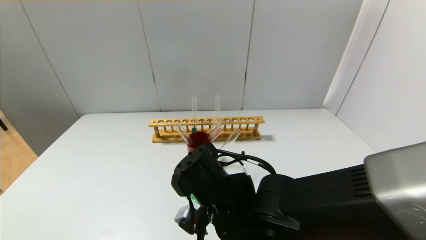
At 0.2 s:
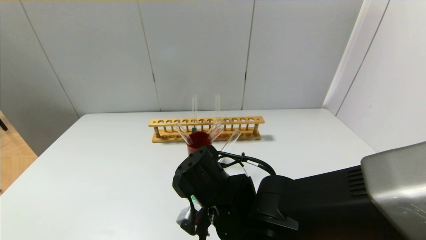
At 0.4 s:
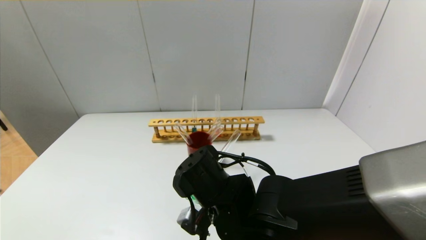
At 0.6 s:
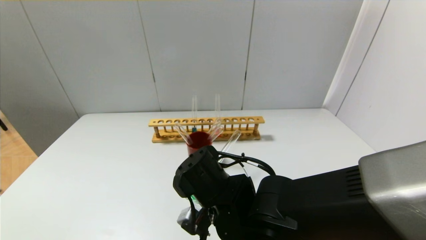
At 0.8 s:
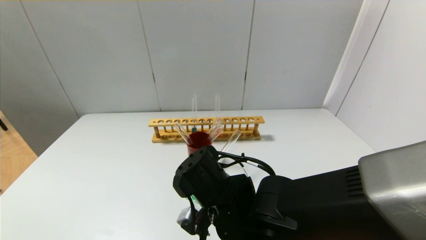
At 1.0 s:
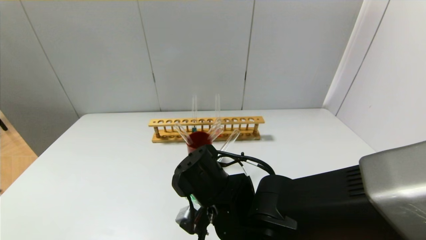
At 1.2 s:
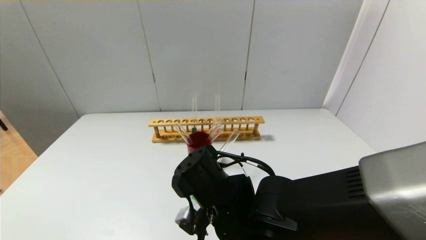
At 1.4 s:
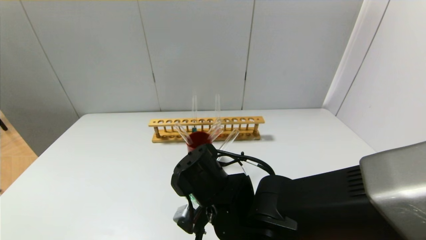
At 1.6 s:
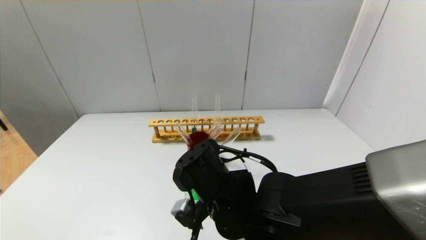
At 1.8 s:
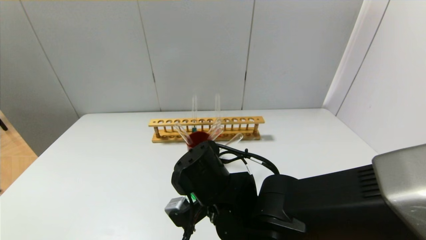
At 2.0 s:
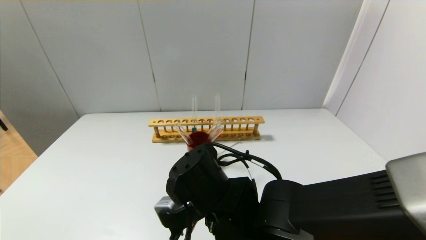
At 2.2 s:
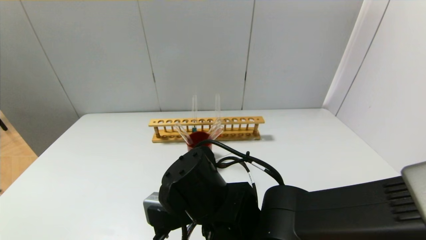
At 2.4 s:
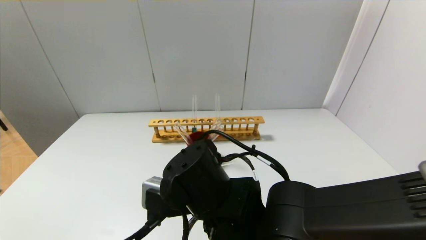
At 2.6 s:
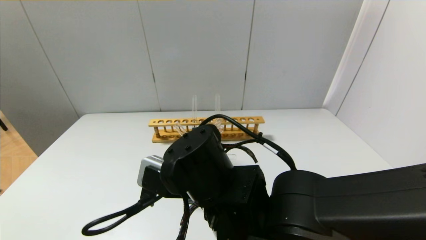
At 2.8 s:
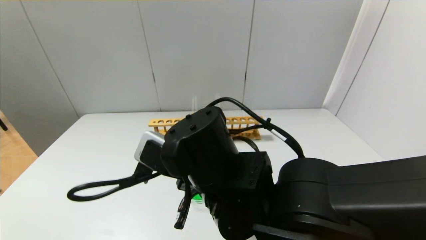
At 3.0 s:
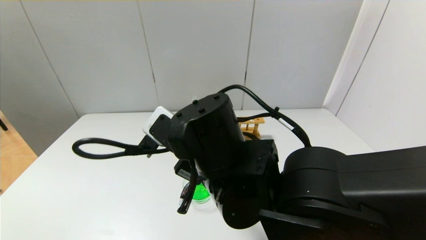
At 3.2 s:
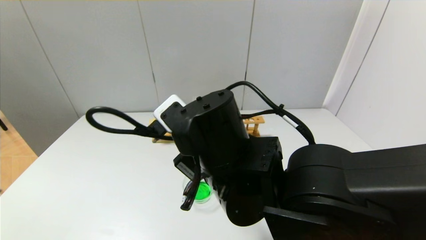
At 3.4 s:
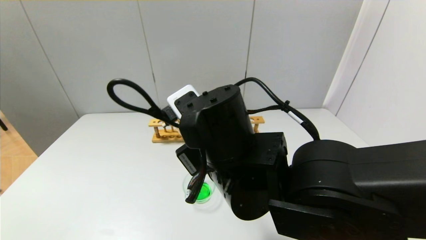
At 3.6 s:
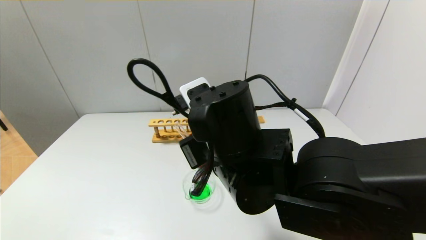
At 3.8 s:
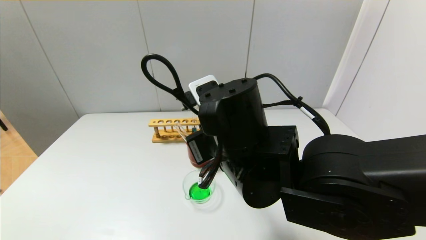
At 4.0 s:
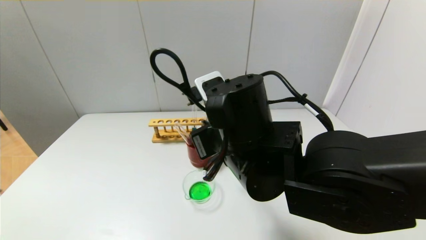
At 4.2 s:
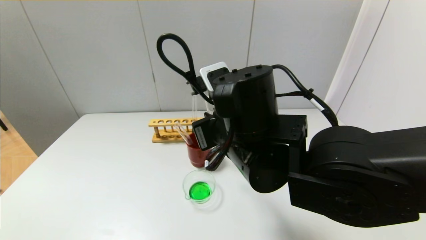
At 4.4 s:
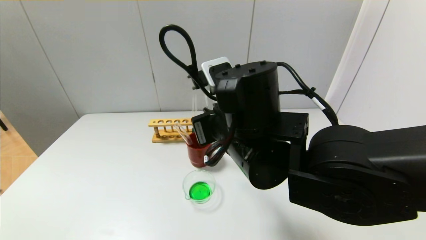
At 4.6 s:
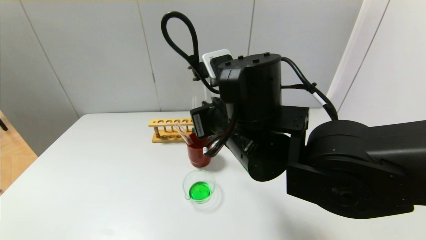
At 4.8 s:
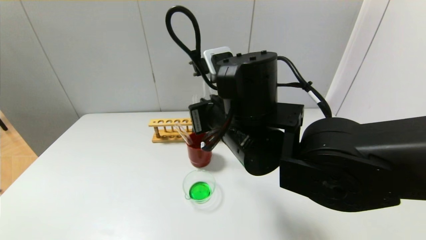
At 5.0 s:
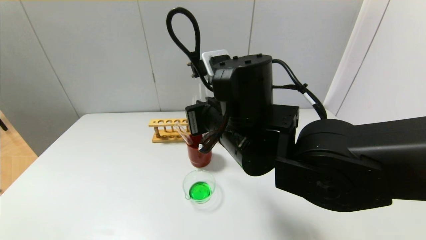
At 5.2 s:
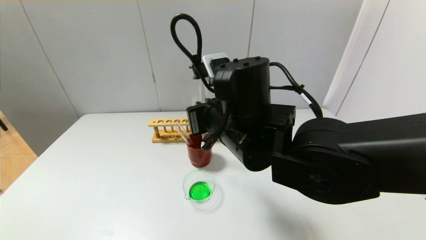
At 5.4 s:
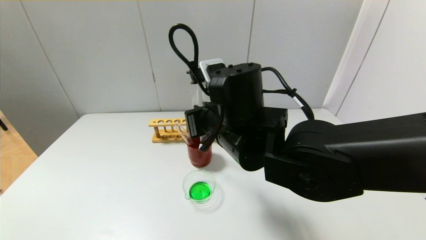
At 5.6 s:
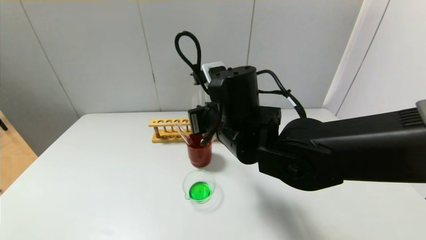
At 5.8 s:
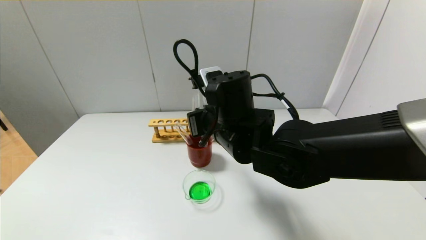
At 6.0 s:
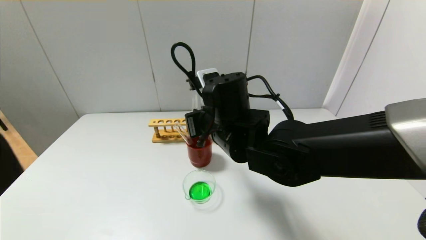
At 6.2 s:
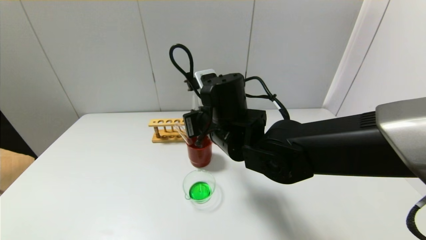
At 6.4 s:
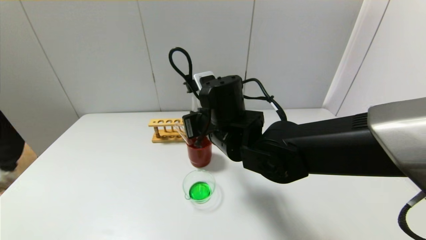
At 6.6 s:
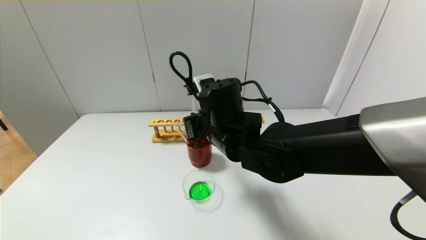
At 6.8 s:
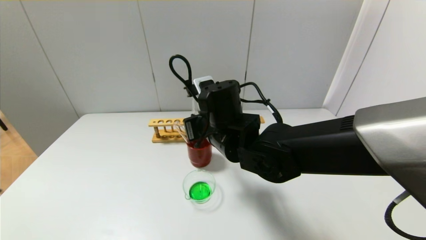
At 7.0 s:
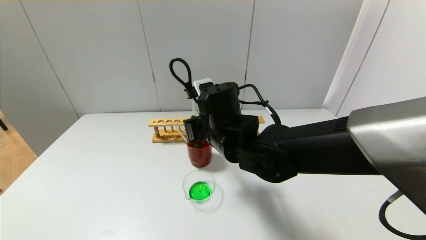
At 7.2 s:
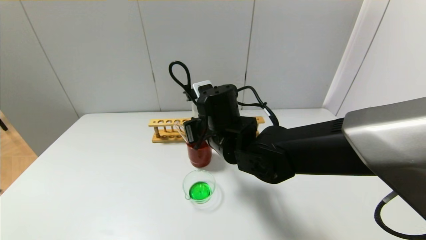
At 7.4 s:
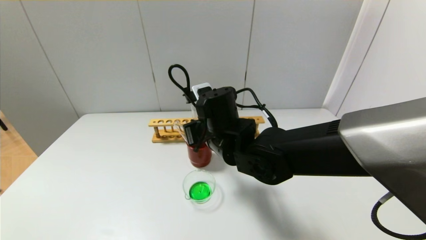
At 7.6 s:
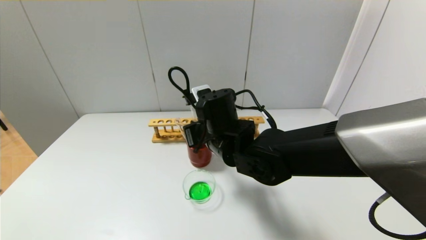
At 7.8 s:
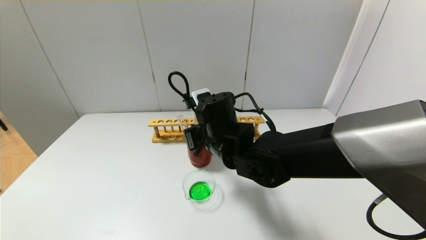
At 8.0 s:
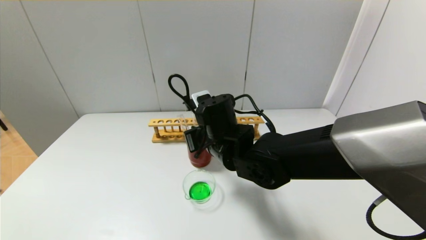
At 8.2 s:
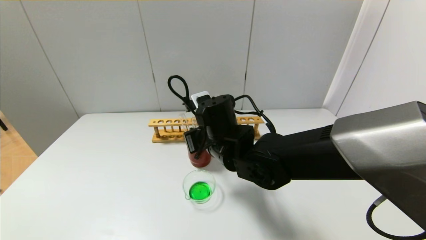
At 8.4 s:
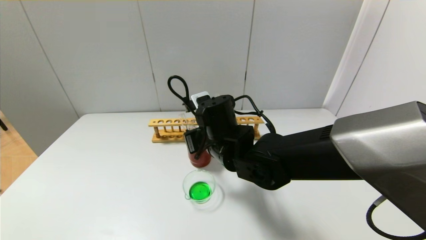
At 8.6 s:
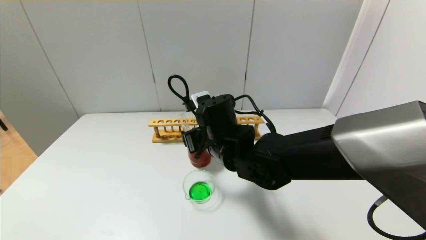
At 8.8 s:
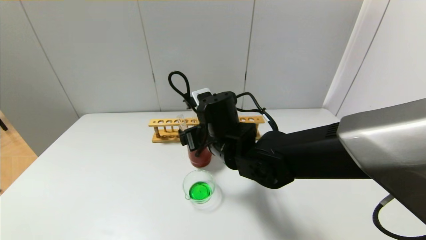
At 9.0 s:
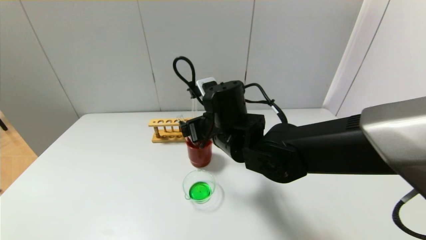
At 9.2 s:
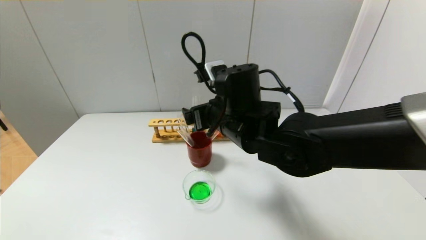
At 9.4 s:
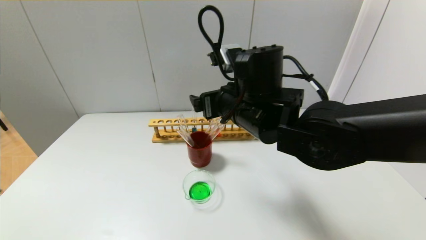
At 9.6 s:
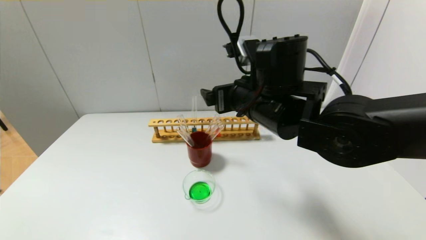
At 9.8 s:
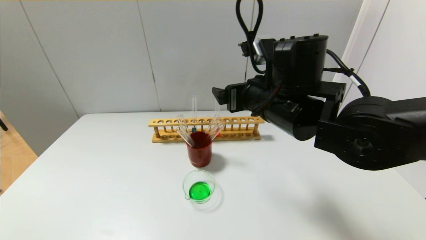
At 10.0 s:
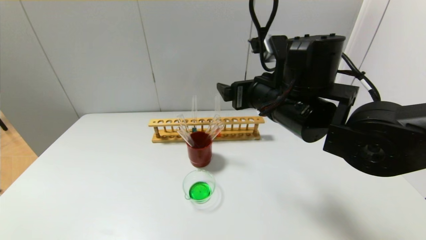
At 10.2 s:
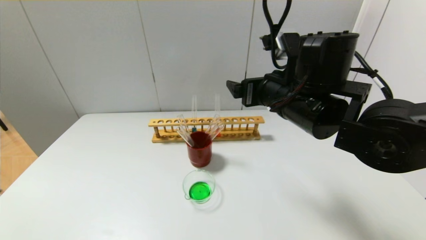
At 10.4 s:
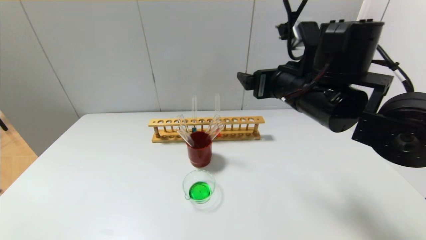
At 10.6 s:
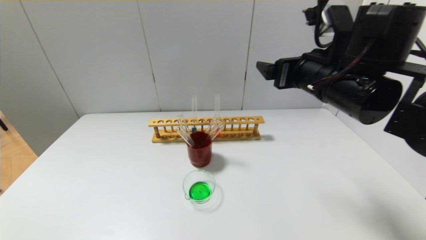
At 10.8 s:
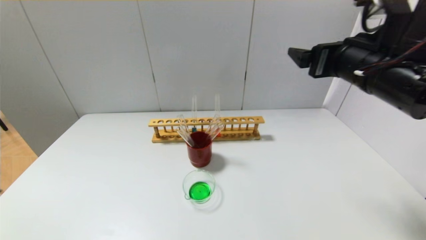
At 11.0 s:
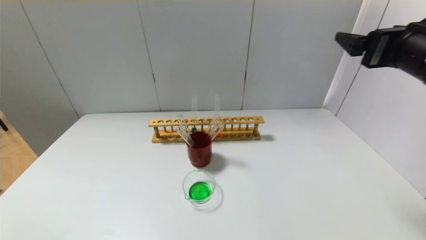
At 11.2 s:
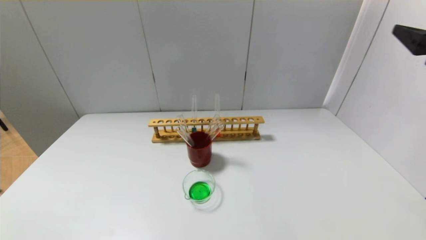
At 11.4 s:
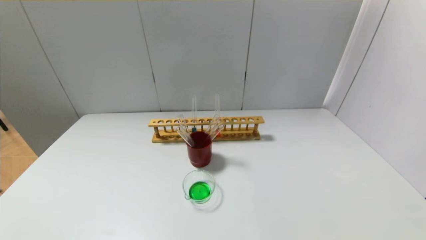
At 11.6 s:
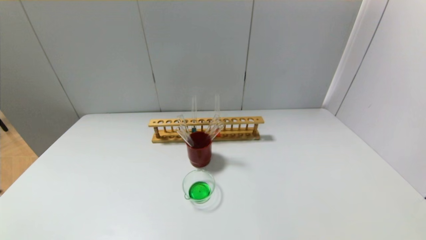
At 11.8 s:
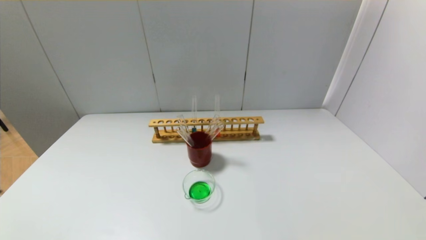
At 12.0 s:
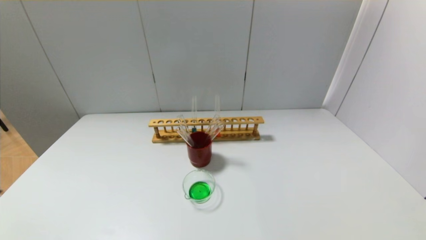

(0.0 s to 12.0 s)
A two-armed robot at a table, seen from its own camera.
Step, 0.0 s - 2.0 s: Pour the blue reagent into the graduated cylinder with the right gripper.
Step, 2.2 s - 9.0 s: Place the test tube into the brown cup with the right gripper.
0.0 s - 1.6 s: The grippers stay close to where they were, moving slightly.
1.6 s - 3.0 s: The right gripper heads upward, covering approximately 10 cm.
4.4 s - 6.0 s: The right gripper travels forward by roughly 5 cm.
6.0 s - 7.6 s: The grippers make only small movements.
7.6 s - 9.0 s: The right gripper opens its fingers.
9.0 s - 10.4 s: The right gripper goes roughly 15 cm to the right and upward.
10.4 s - 12.0 s: The right gripper shifts roughly 35 cm backward and to the right.

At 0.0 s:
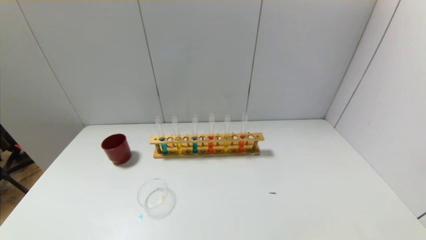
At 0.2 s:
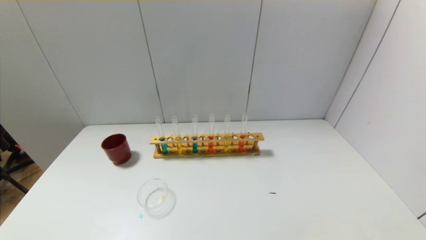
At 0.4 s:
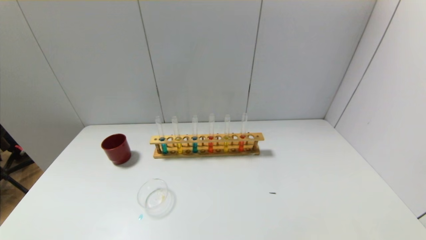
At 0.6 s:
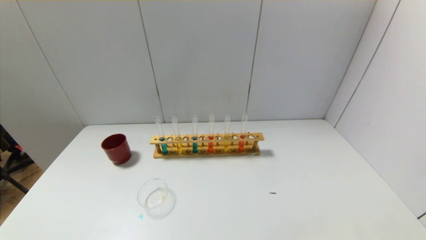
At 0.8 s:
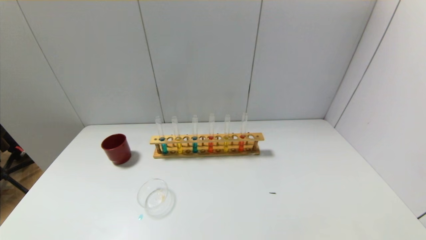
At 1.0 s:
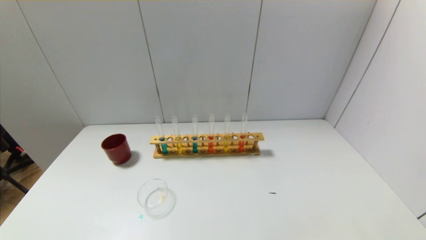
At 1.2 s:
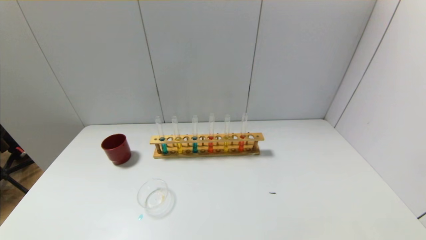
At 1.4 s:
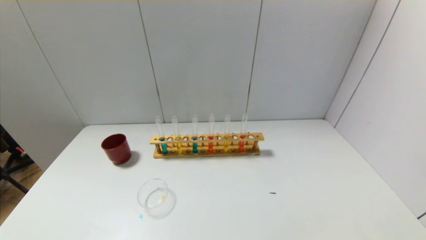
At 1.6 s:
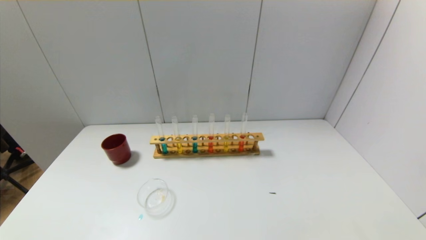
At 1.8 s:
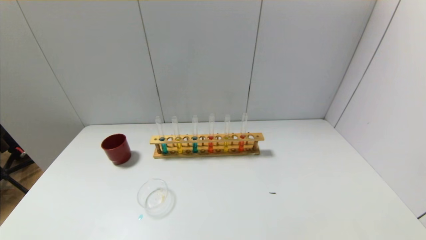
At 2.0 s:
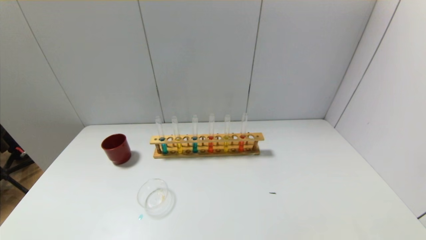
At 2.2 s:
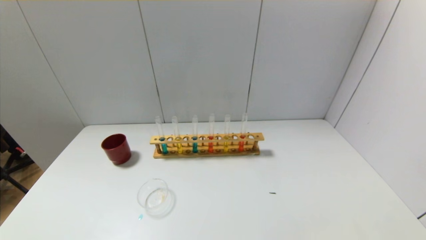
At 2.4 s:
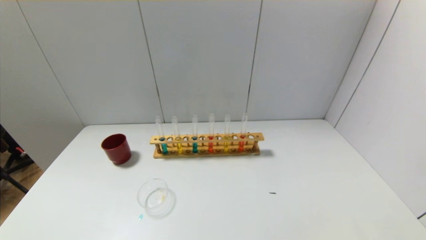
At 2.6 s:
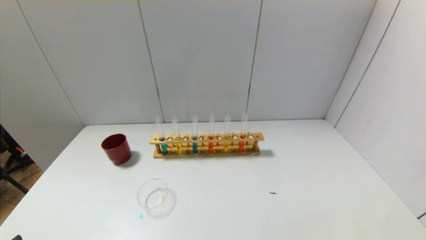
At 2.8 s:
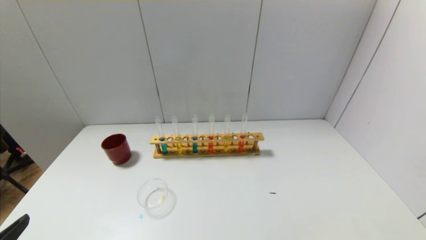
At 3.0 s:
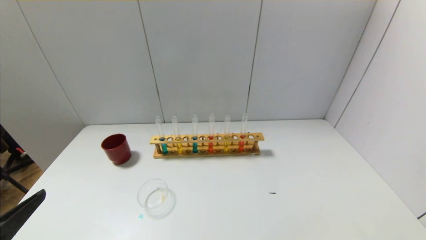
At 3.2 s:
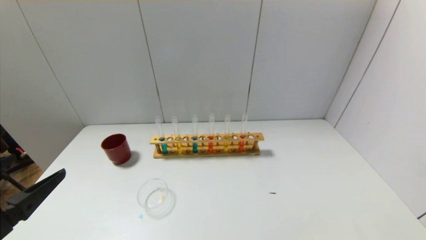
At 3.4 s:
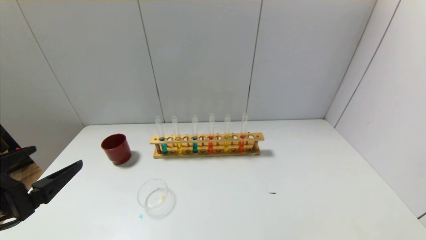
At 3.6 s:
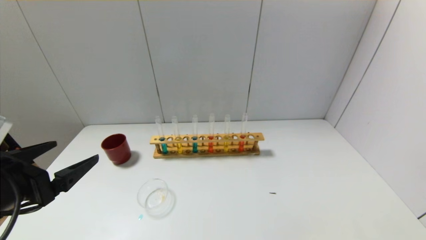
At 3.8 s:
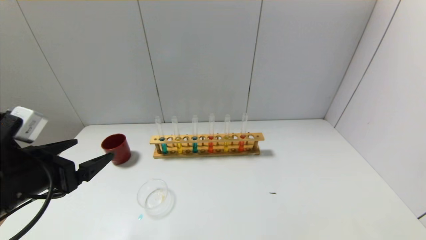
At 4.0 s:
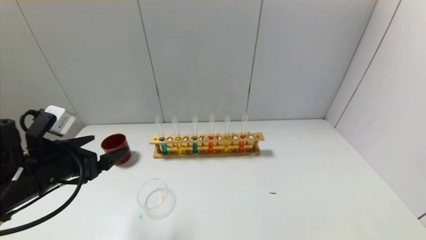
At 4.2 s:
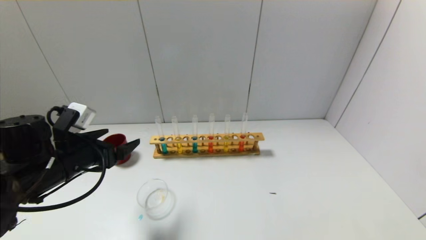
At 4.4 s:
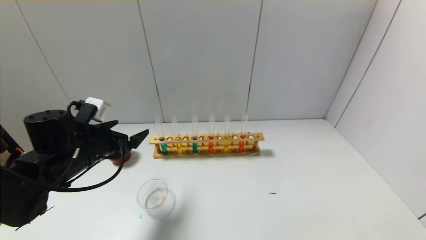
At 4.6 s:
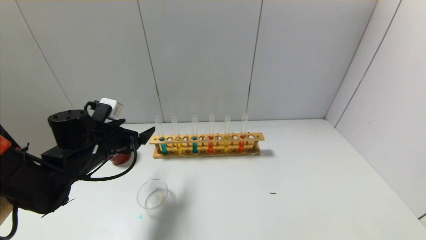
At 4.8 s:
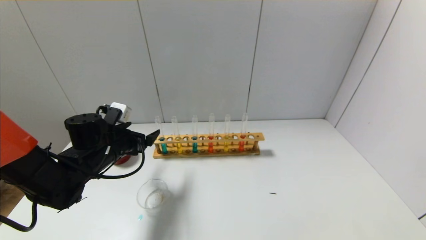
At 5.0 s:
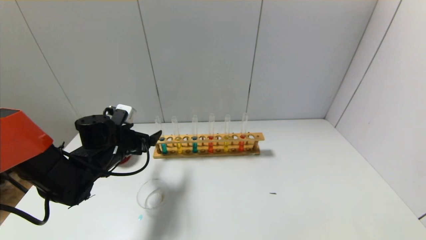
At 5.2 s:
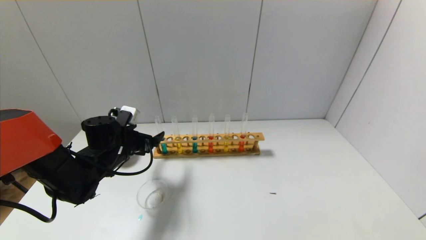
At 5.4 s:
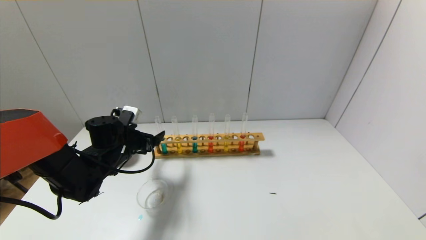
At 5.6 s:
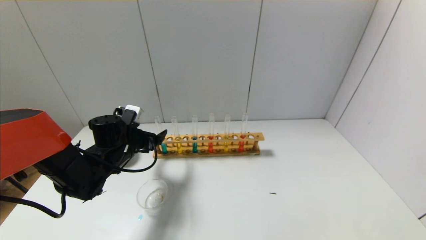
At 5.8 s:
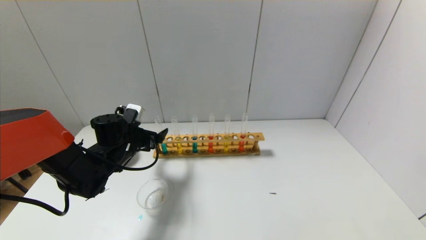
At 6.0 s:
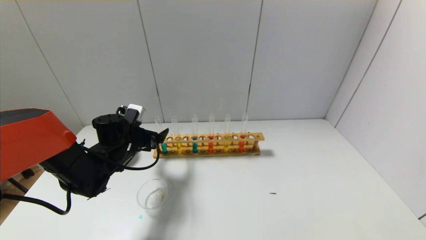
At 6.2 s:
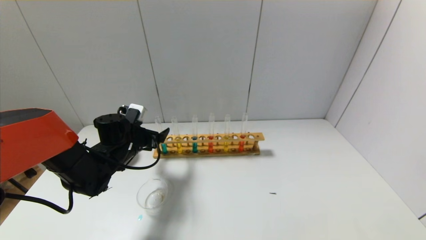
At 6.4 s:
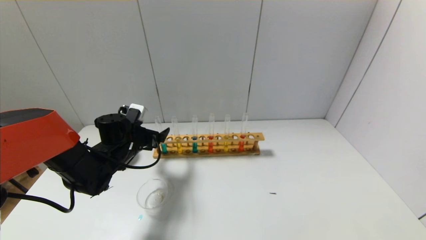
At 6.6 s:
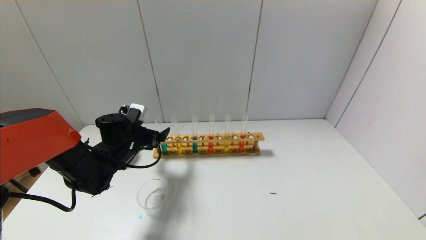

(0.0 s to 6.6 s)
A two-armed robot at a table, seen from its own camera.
0.0 s - 1.6 s: Both grippers stay about where they are.
1.6 s - 3.2 s: The left gripper shifts approximately 15 cm upward and forward.
3.2 s - 5.0 s: The left gripper is displaced forward and downward by some 25 cm.
5.0 s - 6.6 s: There are only small adjustments of the grippers.
